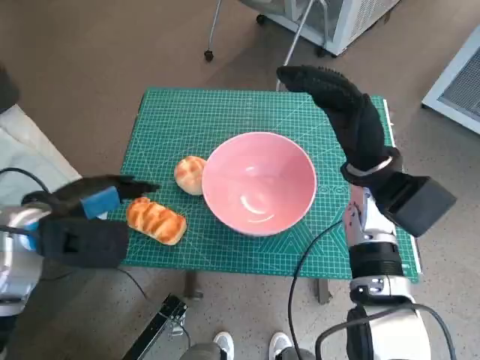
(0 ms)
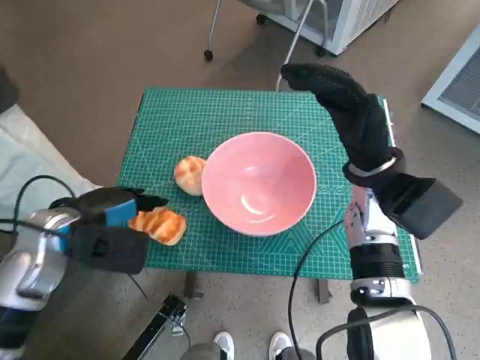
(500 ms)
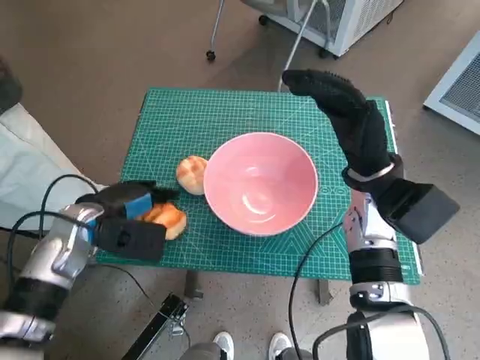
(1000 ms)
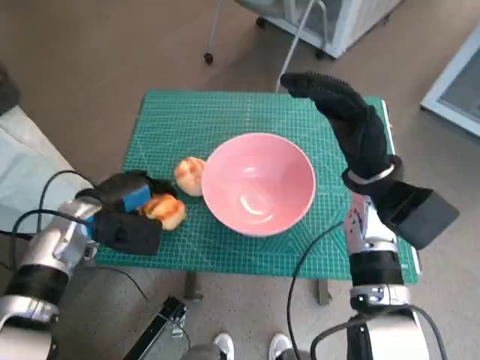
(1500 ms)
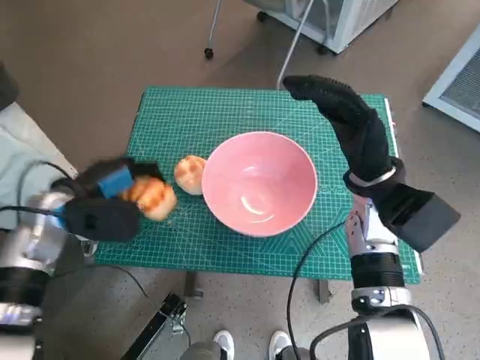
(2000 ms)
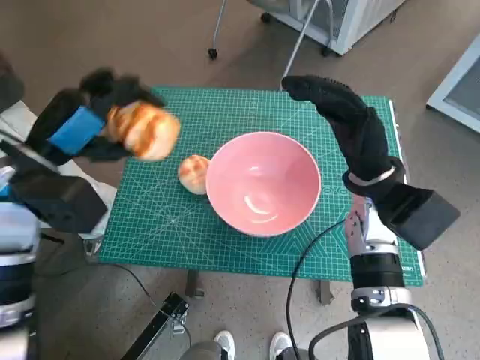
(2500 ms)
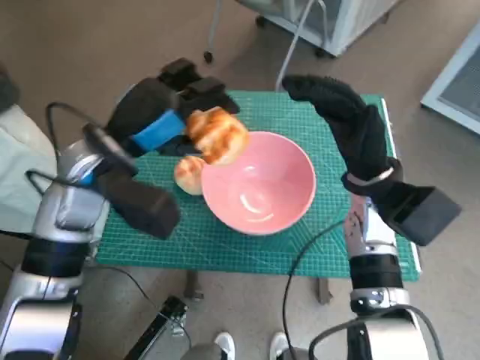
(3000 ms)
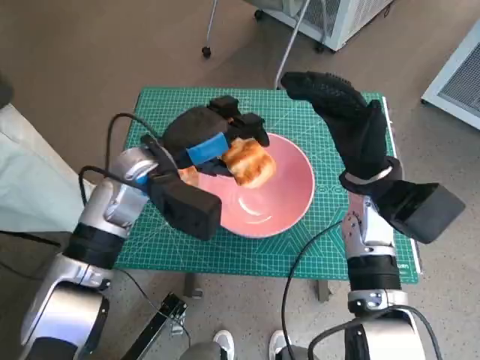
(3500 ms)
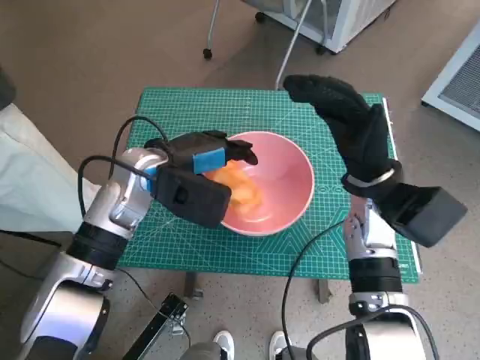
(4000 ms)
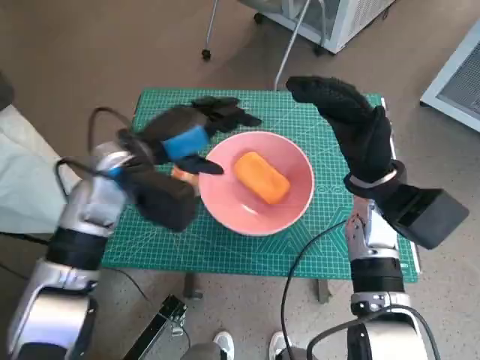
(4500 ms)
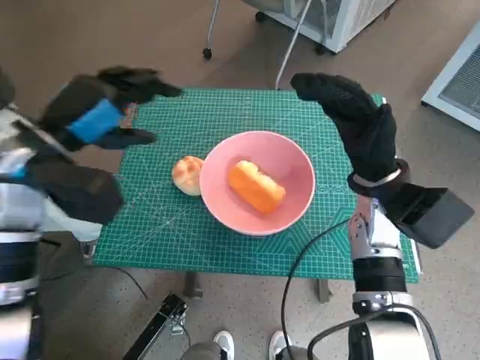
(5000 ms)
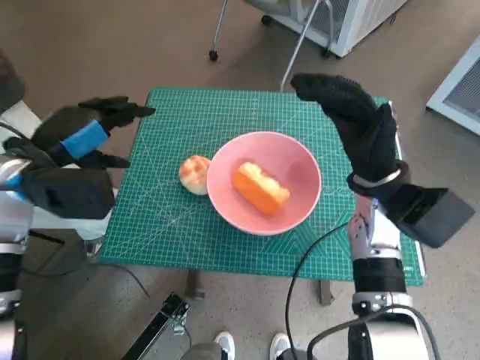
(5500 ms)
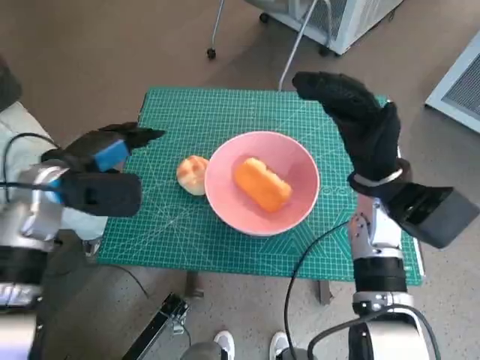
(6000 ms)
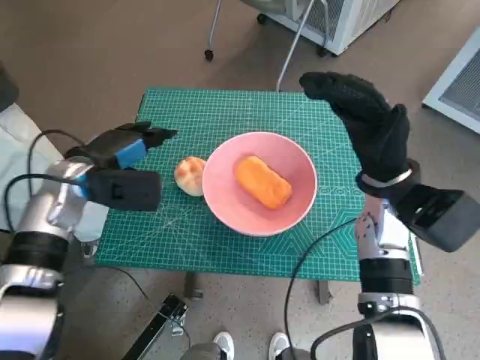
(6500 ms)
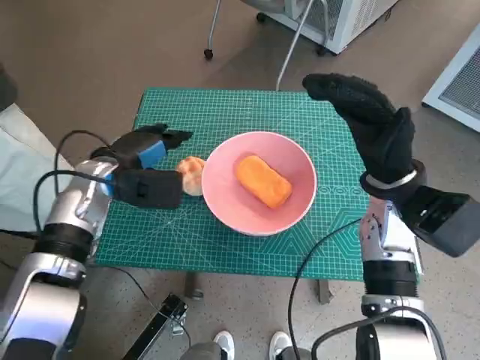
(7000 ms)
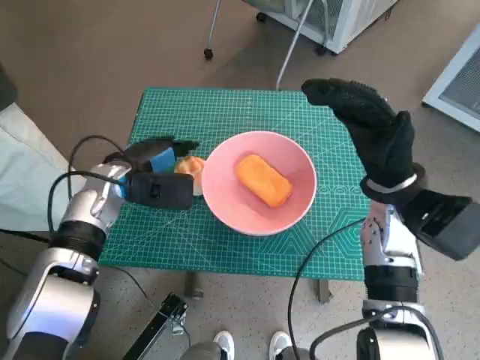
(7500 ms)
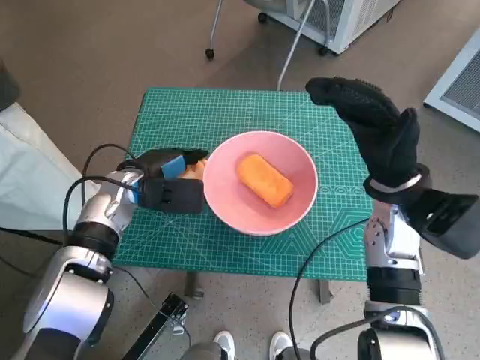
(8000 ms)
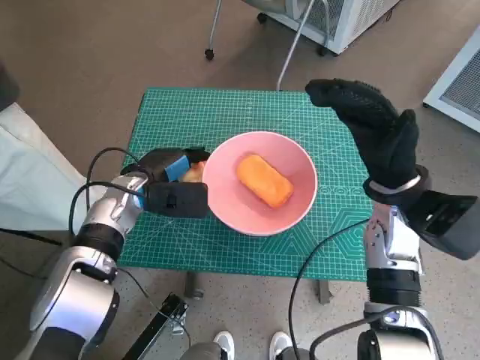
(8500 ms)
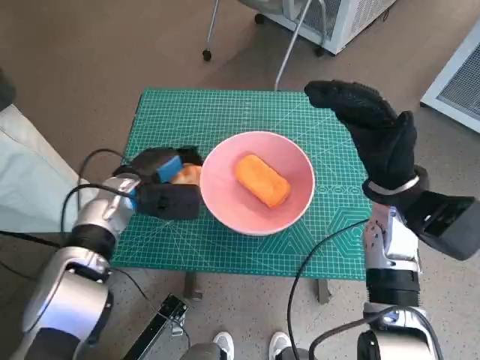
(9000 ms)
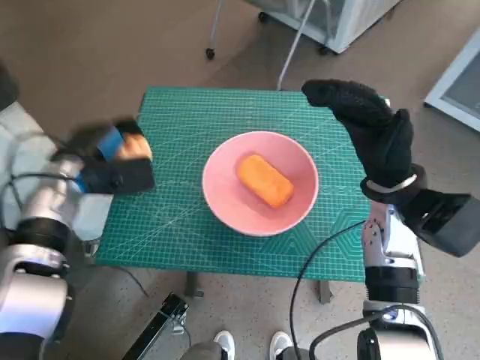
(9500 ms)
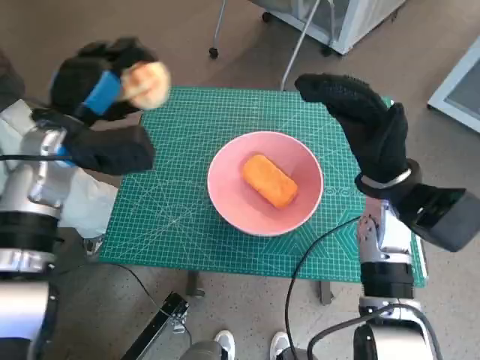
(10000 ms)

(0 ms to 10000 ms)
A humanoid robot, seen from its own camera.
Task of the whole recording: Push the bowl to the center of the table and put the bread into the bowl.
Step, 1500 ms - 4000 ms: Place the long bread in pink bowl with left hand.
Step, 4500 ms - 8500 ms: Grasp the round bread with left hand.
0 ms - 2000 ms: The left hand goes about 5 cm downward.
2000 ms - 4000 ms: The left hand heads to the right, covering about 15 cm.
4000 ms - 6000 ms: The left hand goes some 10 cm to the left.
6000 ms - 8000 ms: The left hand goes some 10 cm downward and to the right.
8000 ms - 10000 ms: The left hand goes approximately 10 cm upward.

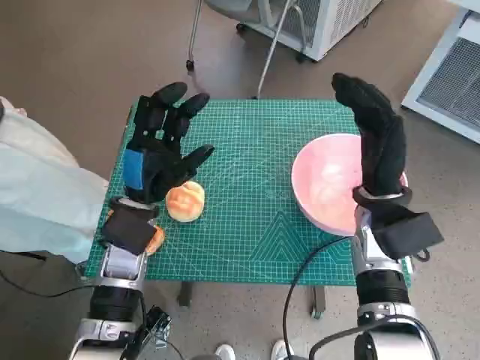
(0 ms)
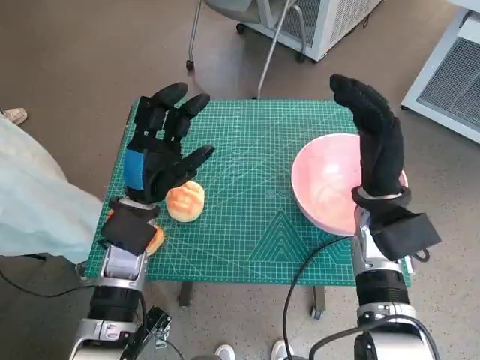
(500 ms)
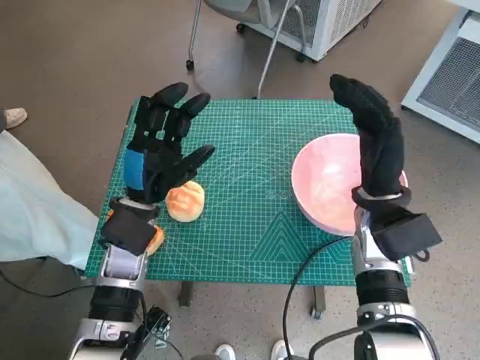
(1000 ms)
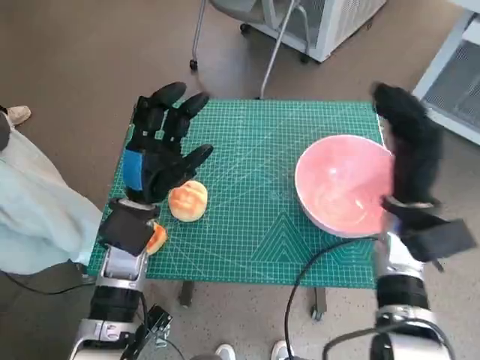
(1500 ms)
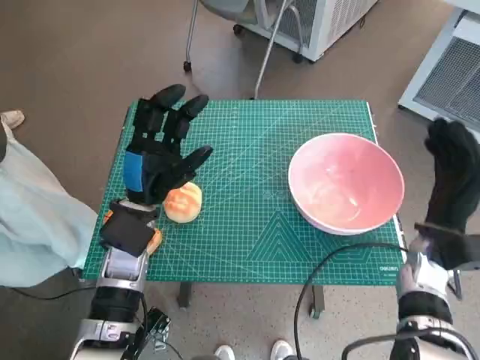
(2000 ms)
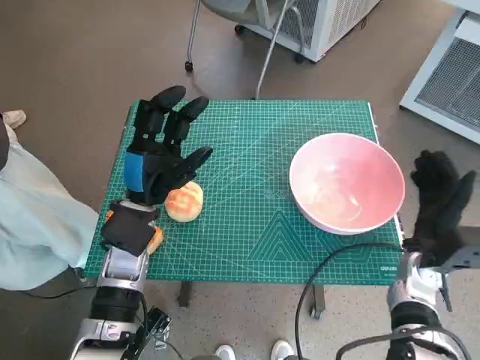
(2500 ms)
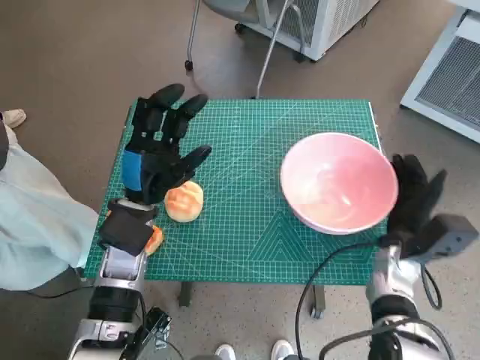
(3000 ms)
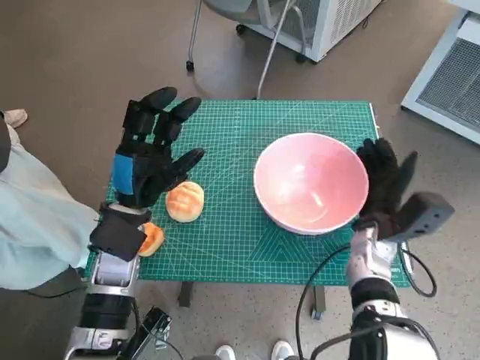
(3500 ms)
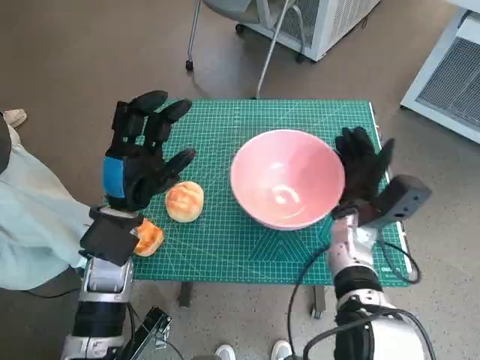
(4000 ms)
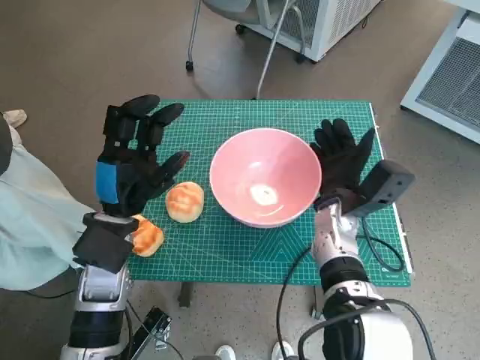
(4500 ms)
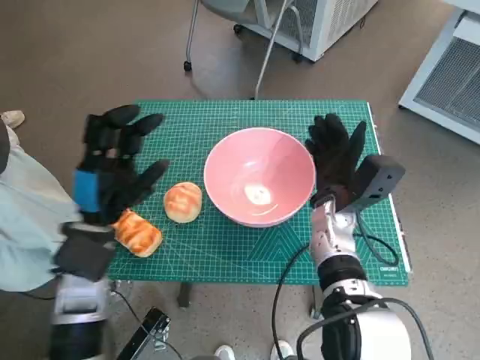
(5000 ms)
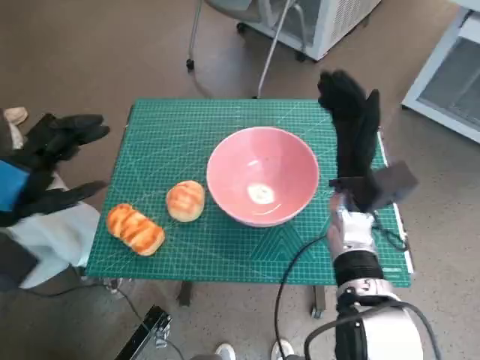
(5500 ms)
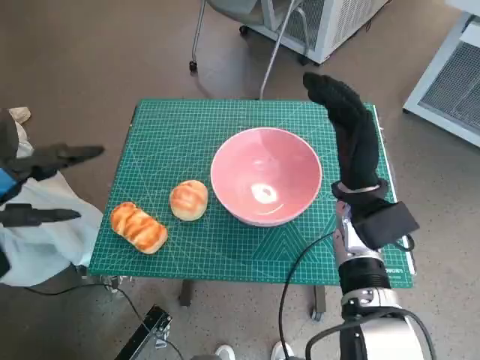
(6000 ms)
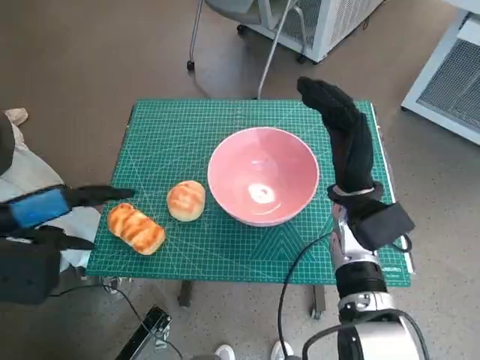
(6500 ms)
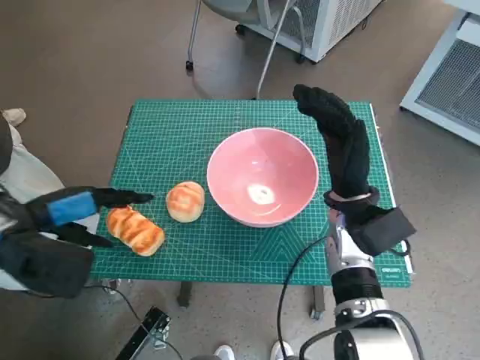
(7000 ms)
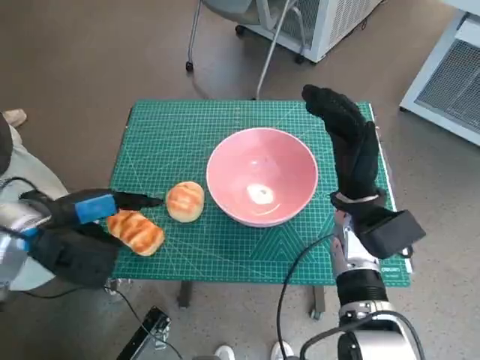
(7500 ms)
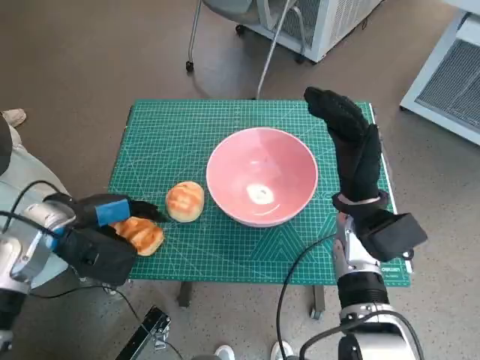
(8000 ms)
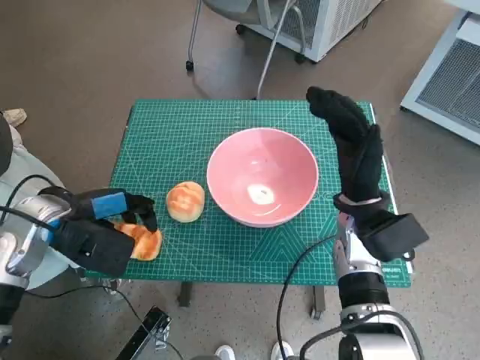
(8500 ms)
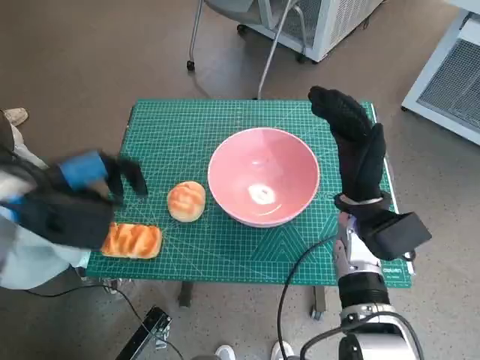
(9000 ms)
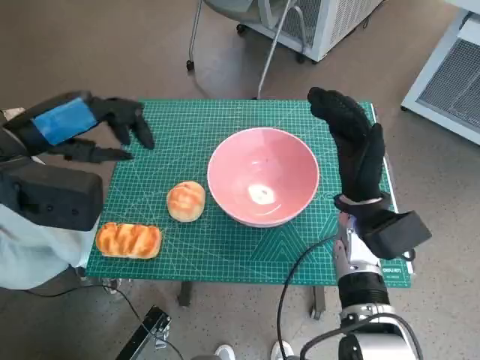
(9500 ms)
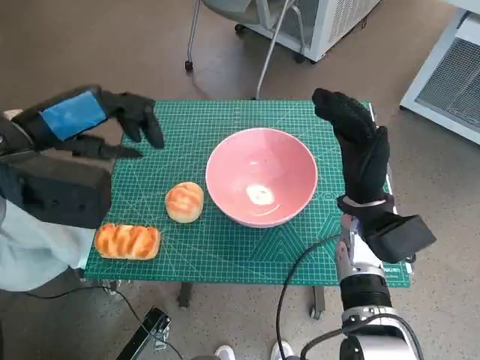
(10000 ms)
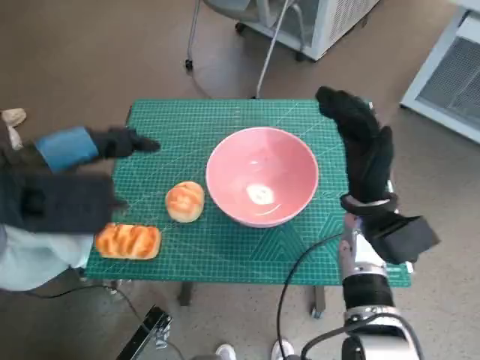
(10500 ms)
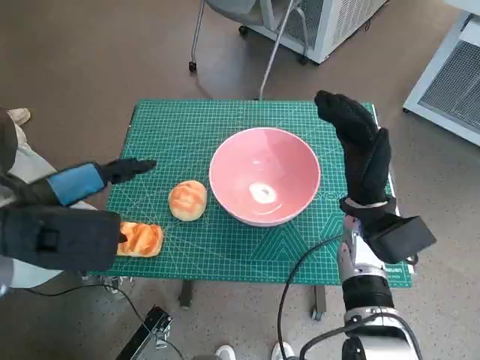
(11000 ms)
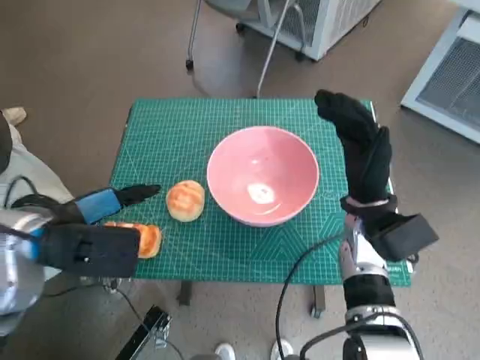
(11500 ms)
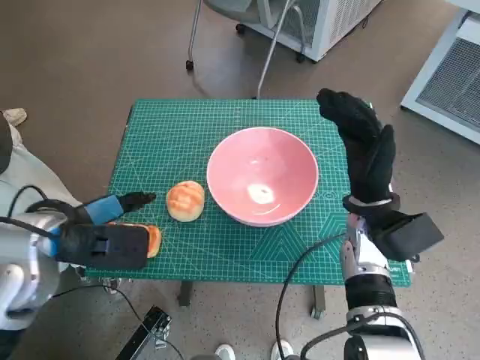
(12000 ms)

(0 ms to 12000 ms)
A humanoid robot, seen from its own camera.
Task of the whole recording: Push the bowl to the center of the table and put the bread into the bowl.
Step, 0 ms - 5000 ms: Move the pink bowl to the center of table with right hand.
2000 ms - 4000 ms: The right hand moves to the left, some 10 cm.
4000 ms - 6000 ms: The right hand is displaced upward by about 5 cm, while the left hand moves to the left, upward and backward, about 20 cm.
6000 ms - 8000 ms: The left hand is displaced downward, forward and to the right by about 15 cm.
8000 ms - 10000 ms: The left hand heads upward, covering approximately 15 cm.
10000 ms - 12000 ms: The left hand travels downward by roughly 10 cm.

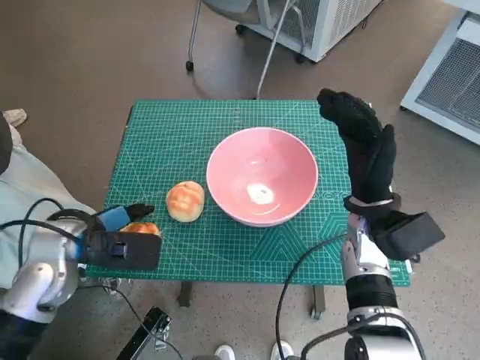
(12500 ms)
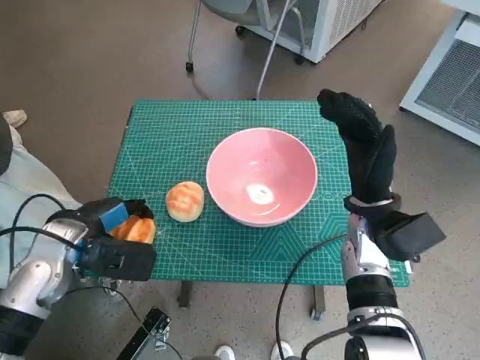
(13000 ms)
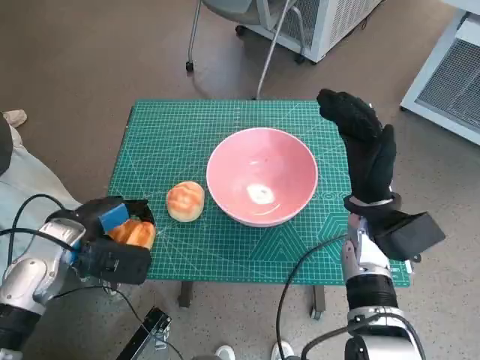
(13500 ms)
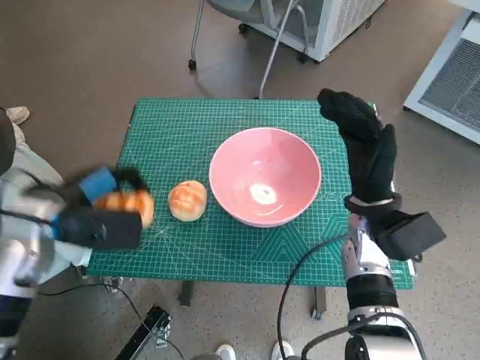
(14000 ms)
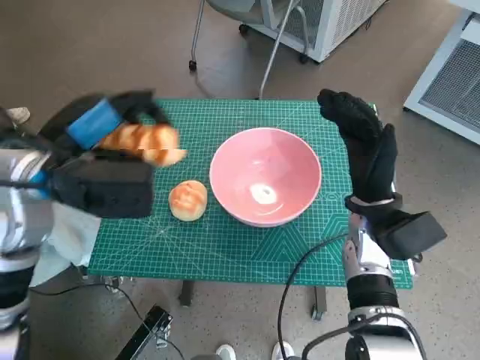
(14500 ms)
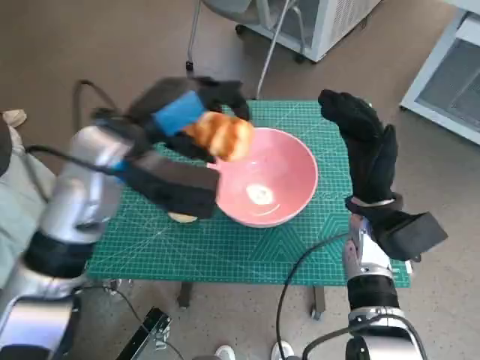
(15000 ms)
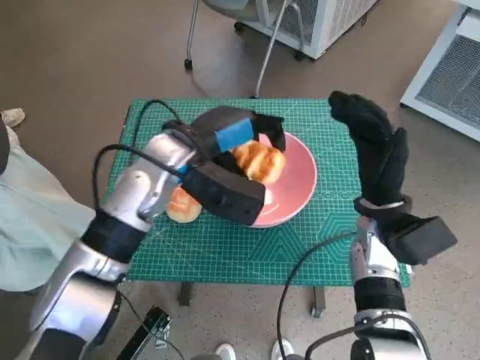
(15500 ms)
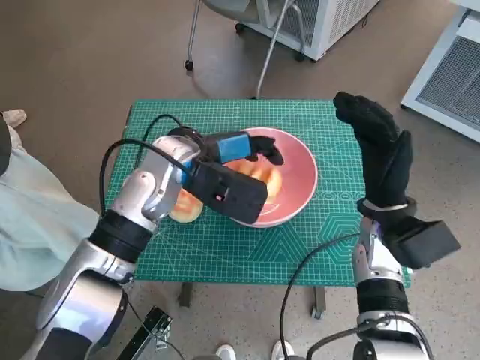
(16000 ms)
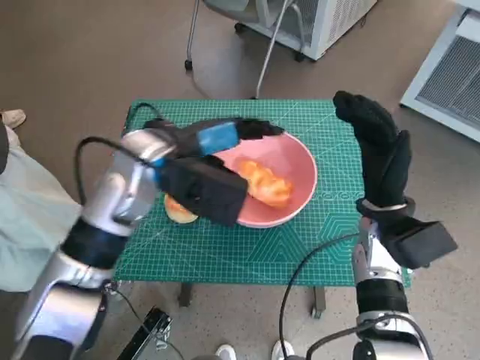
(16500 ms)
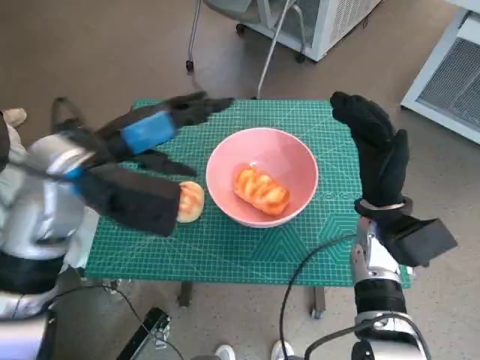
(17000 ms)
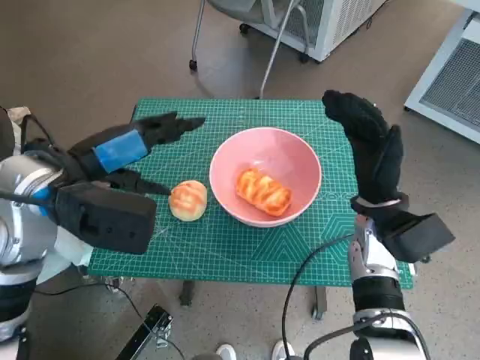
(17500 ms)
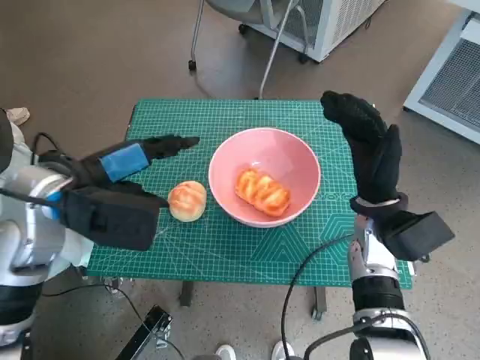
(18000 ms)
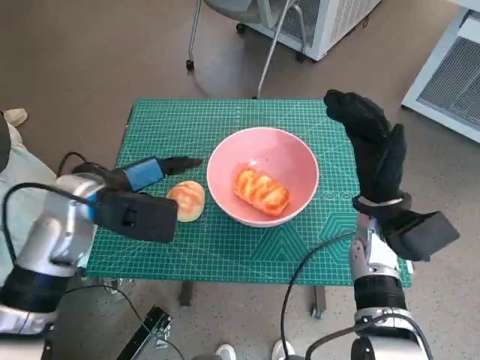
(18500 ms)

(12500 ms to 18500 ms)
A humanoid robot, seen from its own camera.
Task of the whole recording: Push the bowl to the center of the table and put the bread into the bowl.
Step, 13000 ms - 16500 ms: Place the long bread in pink bowl with left hand.
12500 ms - 14500 ms: The left hand shifts roughly 10 cm upward.
14500 ms - 16500 ms: The left hand moves to the right and forward, roughly 10 cm.
16500 ms - 18500 ms: The left hand moves to the left, some 10 cm.
